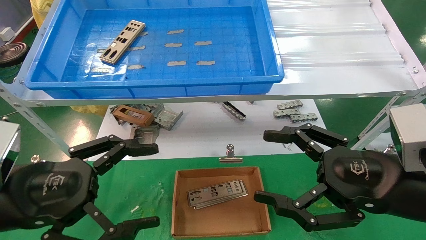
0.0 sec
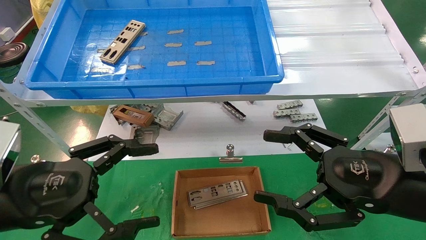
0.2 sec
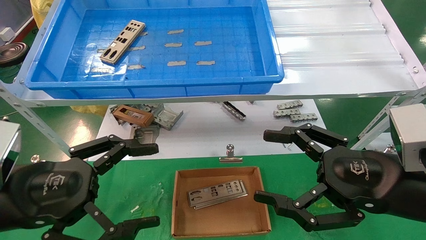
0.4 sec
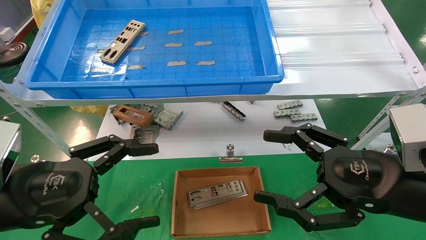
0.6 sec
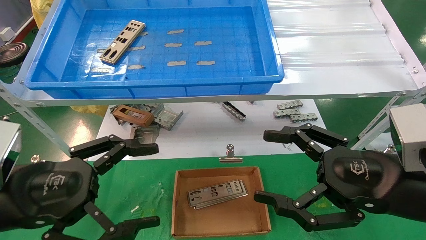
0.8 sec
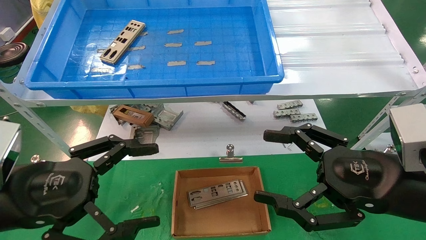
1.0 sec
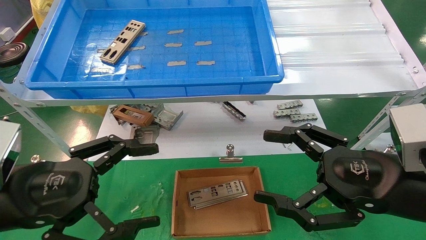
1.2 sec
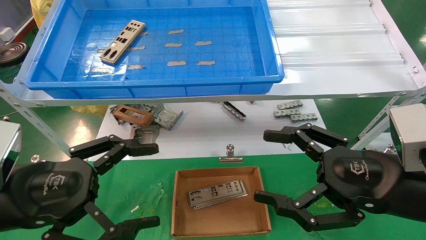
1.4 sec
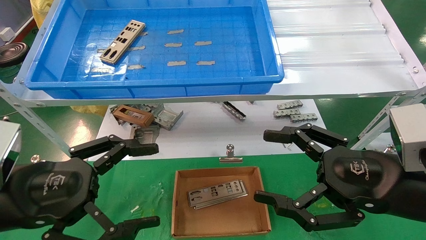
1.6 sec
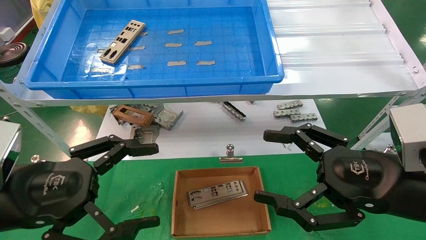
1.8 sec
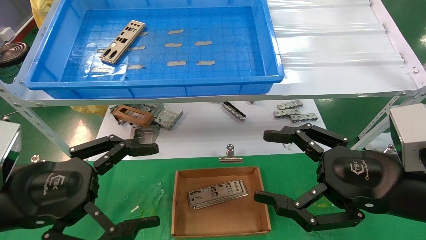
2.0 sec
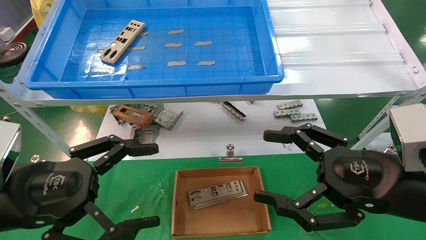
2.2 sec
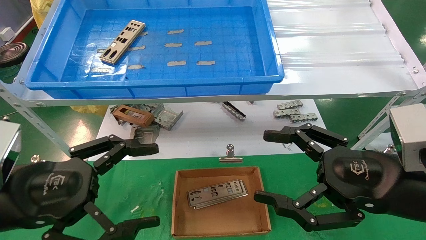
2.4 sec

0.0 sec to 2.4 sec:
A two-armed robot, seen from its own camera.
Task of the whole recording: pick up the parts on the tray and put them in the cardboard box.
0.0 sec to 2.4 sec: Both grippers stay about where they are.
